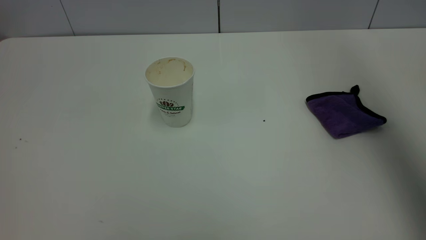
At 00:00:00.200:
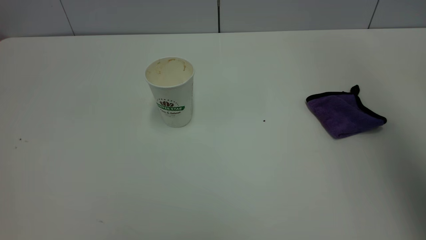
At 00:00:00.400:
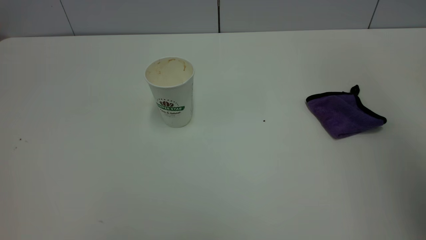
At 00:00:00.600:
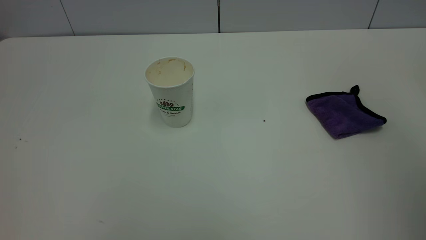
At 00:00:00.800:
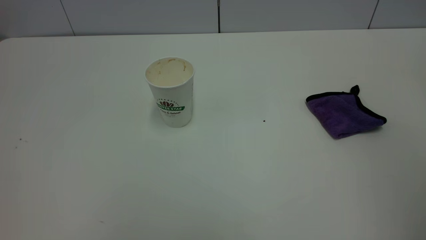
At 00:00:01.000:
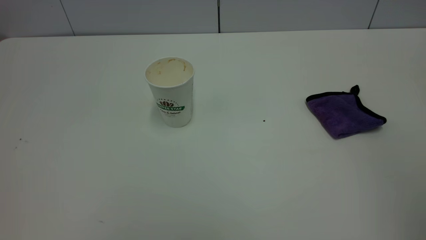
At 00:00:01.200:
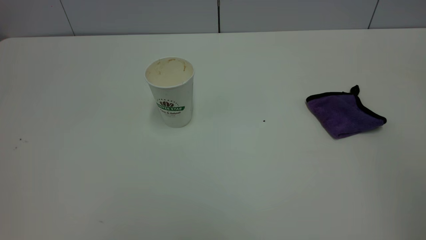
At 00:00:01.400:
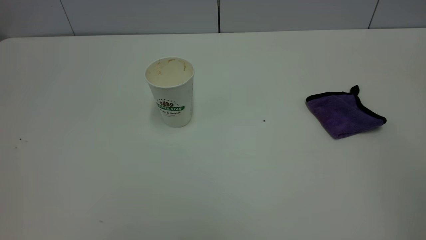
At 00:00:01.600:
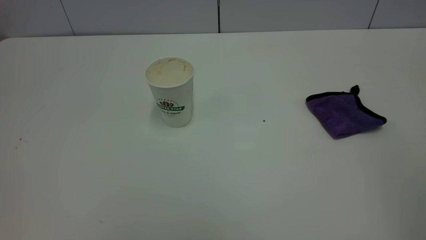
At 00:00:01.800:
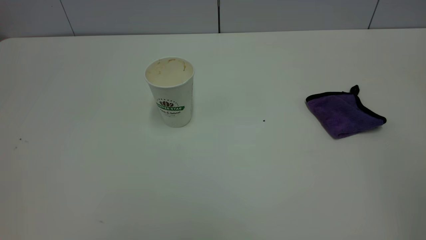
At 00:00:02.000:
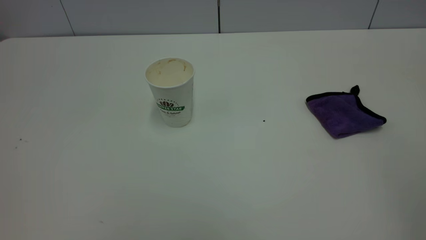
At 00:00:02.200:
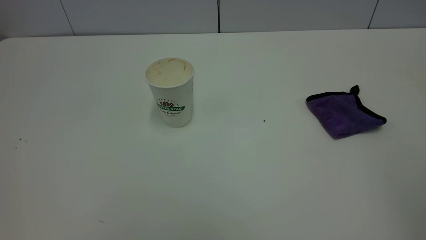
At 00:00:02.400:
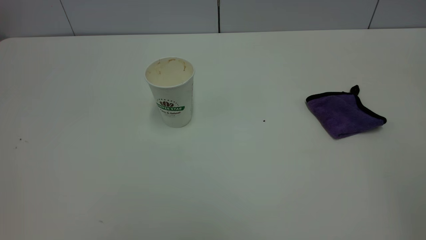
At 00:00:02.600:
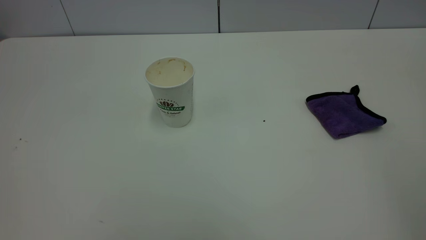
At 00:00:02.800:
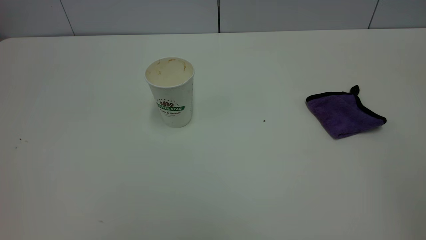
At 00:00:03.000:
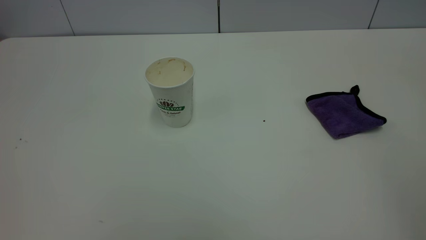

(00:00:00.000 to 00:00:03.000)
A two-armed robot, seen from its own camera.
Task of the whole recording: the left gripper pick up the fallen cup and place it upright, the right gripper grasp the purple rag and wipe the tea stain on the table, the right gripper put the purple rag back in its original position.
00:00:00.000 - 00:00:01.600: The right gripper travels backward and downward by some 30 cm.
